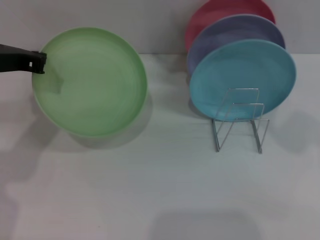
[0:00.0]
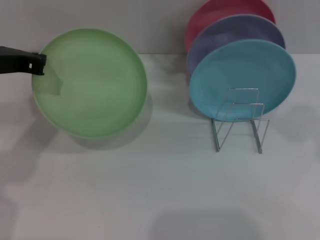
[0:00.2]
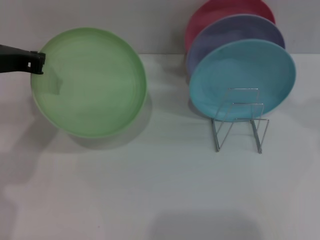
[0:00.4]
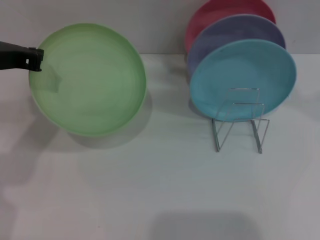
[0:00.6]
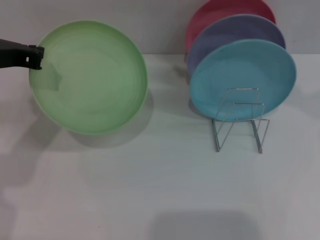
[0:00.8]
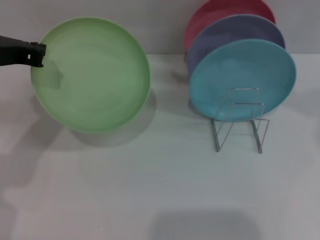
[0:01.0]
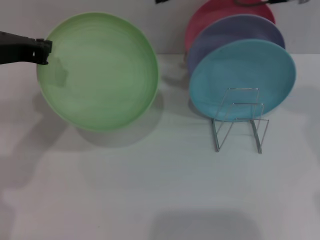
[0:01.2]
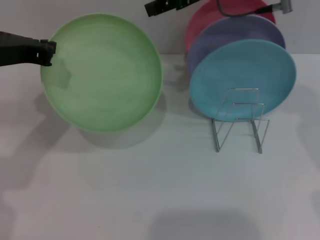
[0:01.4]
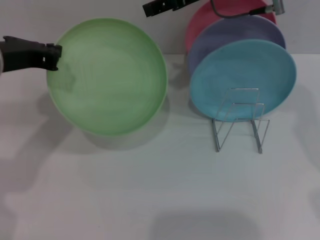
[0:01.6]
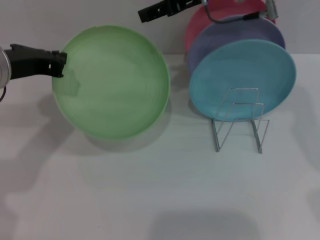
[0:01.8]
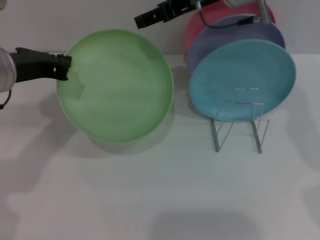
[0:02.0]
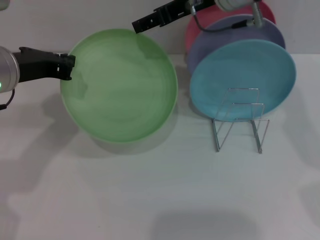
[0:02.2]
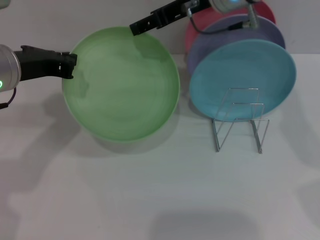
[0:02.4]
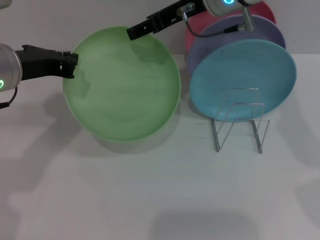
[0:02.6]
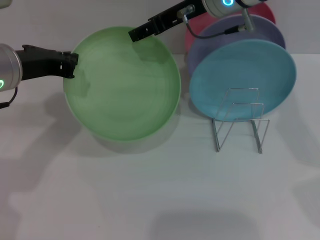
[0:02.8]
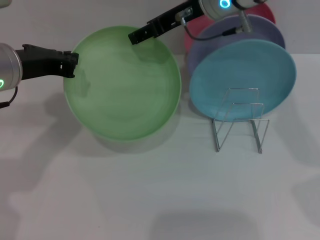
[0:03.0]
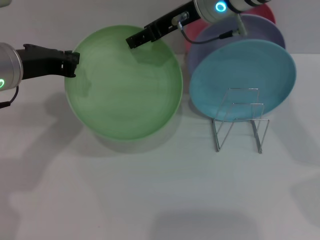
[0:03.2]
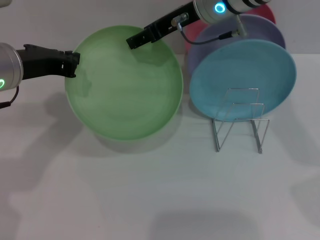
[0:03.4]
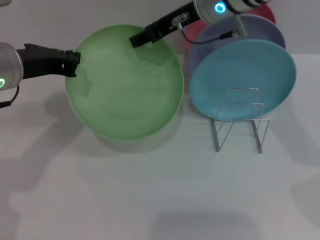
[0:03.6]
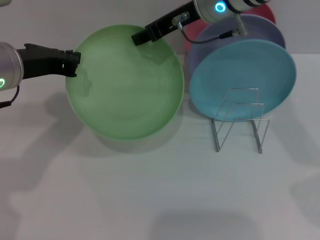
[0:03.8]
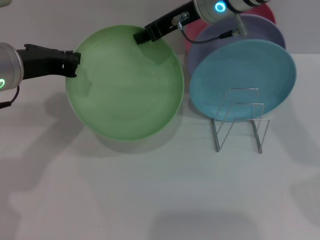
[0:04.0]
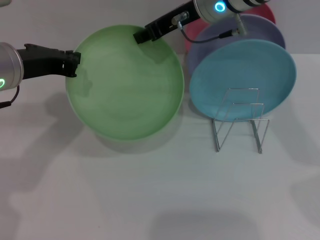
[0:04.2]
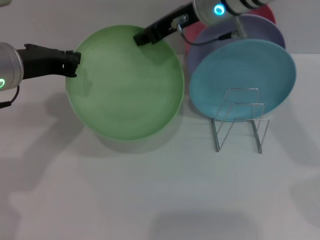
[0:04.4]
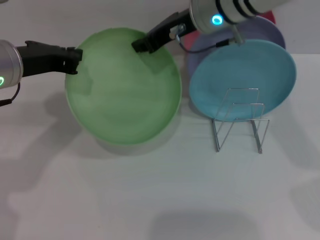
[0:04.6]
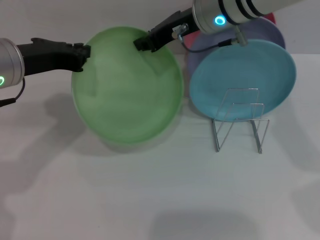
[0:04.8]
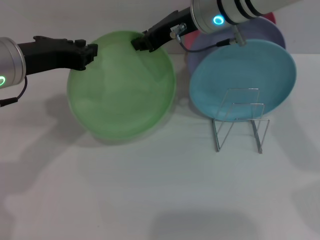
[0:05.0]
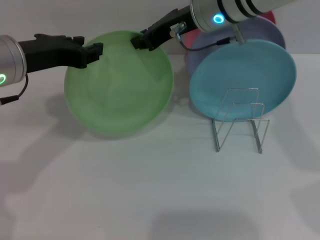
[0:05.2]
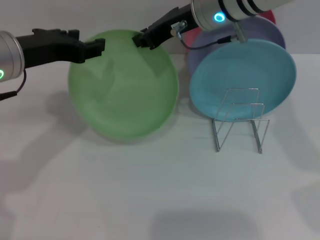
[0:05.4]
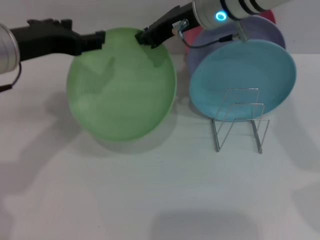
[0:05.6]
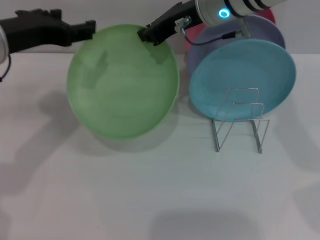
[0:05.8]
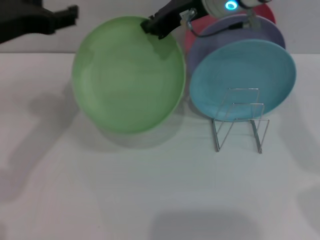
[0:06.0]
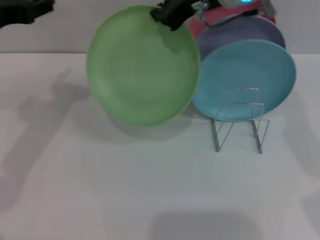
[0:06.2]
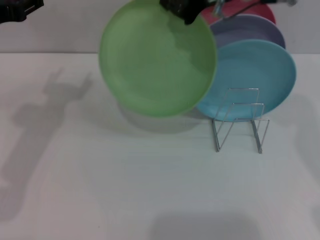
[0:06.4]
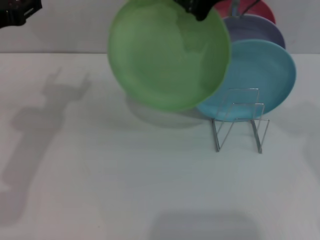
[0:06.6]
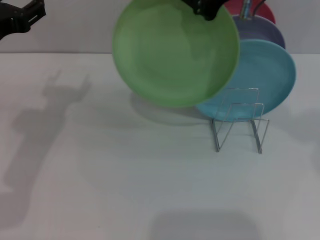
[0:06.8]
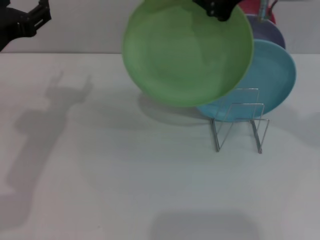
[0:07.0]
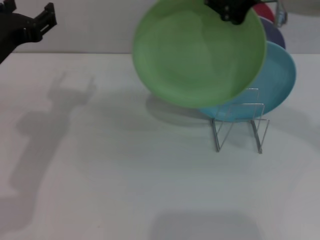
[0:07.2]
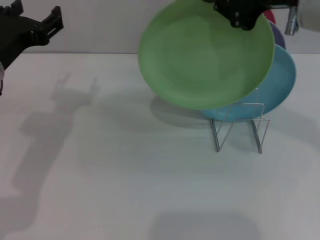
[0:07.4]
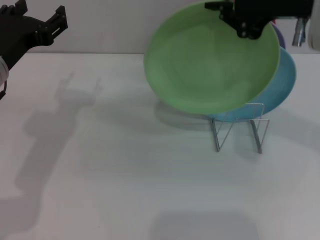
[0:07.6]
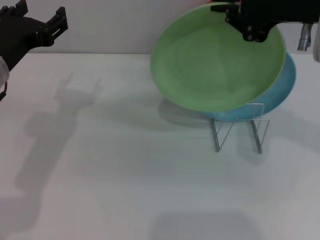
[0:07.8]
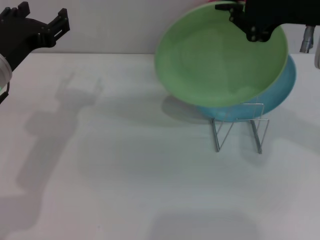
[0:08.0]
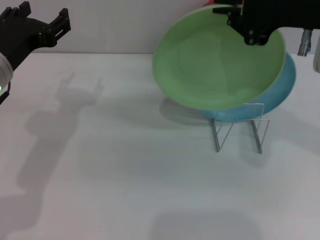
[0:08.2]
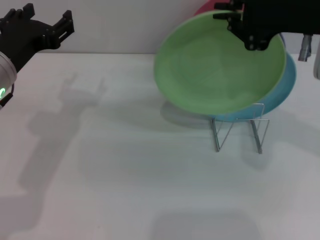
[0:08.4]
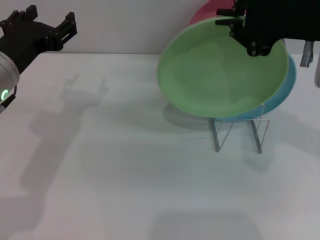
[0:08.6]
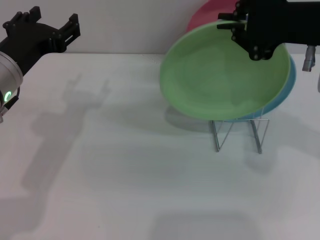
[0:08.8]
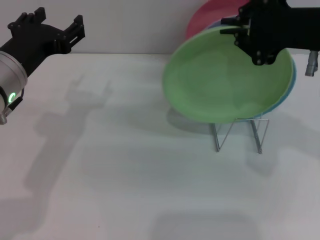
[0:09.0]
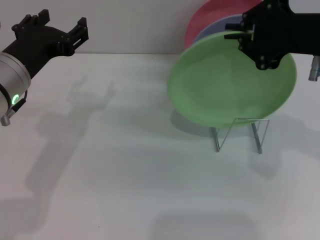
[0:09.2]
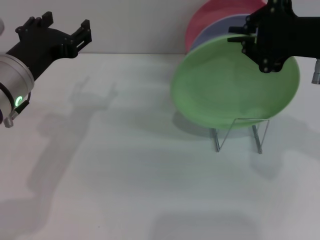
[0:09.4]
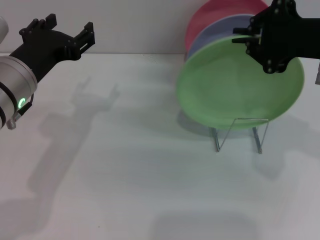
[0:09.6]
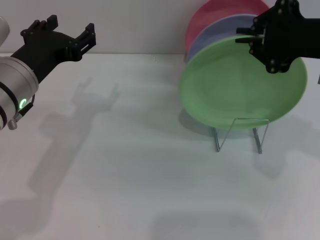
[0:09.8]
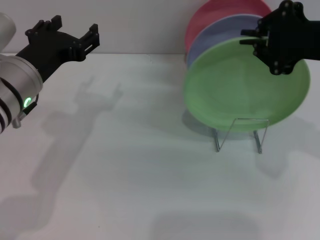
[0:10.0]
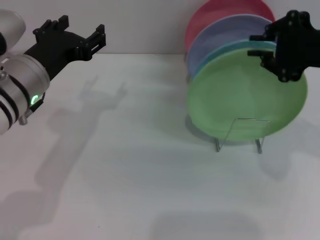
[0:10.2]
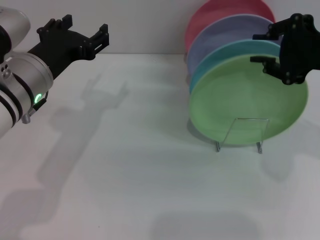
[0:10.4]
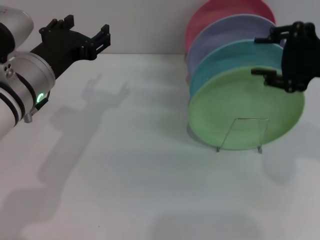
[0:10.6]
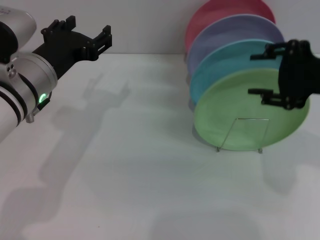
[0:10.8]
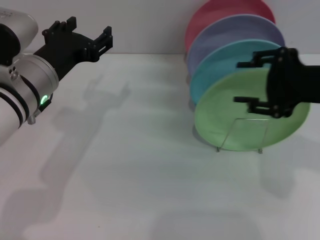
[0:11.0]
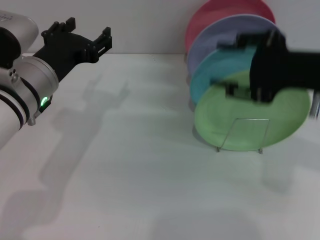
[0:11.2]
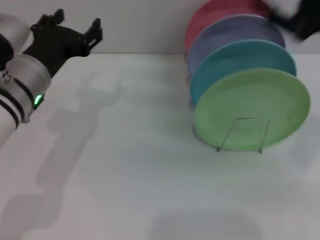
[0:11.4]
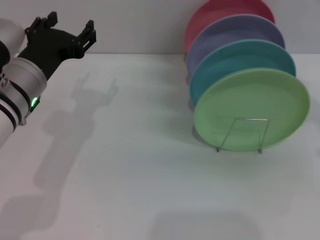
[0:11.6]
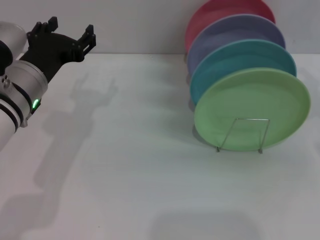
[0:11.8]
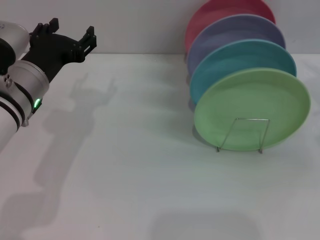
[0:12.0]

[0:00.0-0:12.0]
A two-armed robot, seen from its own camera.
Task of the whole recording: Grip the plate with one hand, pass it to the other, then set it on the shelf.
Step, 0:00.0 to 0:06.0: Pass the plate from the left gripper to the right gripper.
Step, 0:06.2 to 0:11.4: Place the plate on the shelf with the right gripper.
0:00.0 to 0:01.6: The right gripper changes place by roughly 5 cm.
0:01.6 to 0:03.0: The grippers make only small movements.
0:03.0 to 0:04.4: The right gripper closes up.
0:04.4 to 0:06.0: The right gripper closes its fingers; the left gripper opens.
0:06.0 to 0:07.6: The left gripper travels downward by approximately 5 cm; the right gripper moves backward and to the right, roughly 15 cm.
0:07.6 to 0:09.0: The grippers stay close to where they were, moving slightly.
0:09.0 to 0:10.4: There are only small adjustments of the grippers.
0:10.4 to 0:12.0: The right gripper heads to the right and downward, covering approximately 15 cm, and opens up.

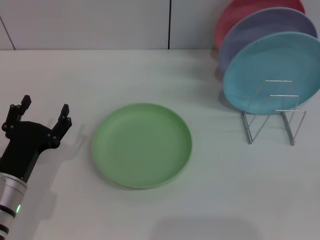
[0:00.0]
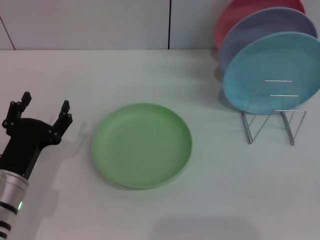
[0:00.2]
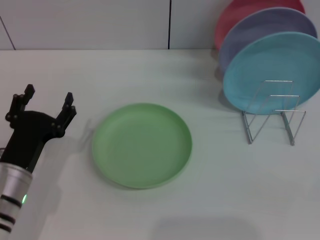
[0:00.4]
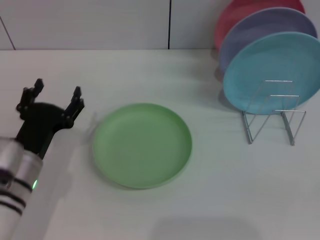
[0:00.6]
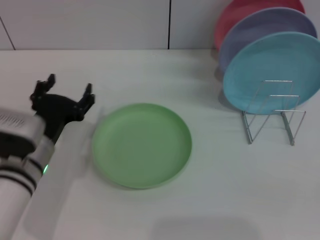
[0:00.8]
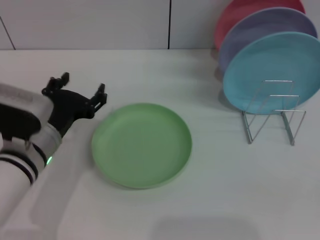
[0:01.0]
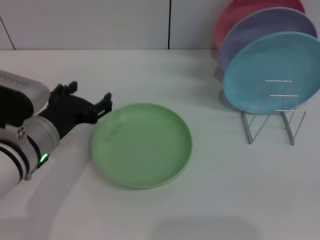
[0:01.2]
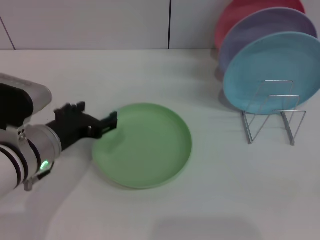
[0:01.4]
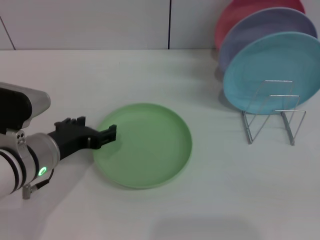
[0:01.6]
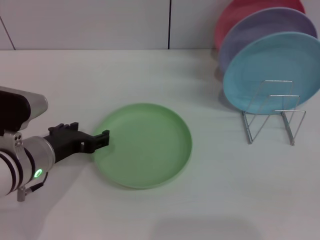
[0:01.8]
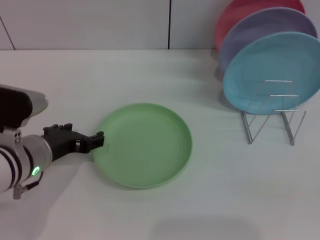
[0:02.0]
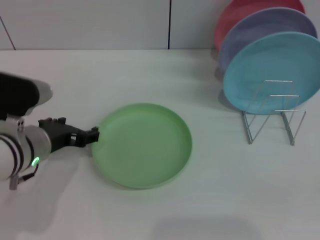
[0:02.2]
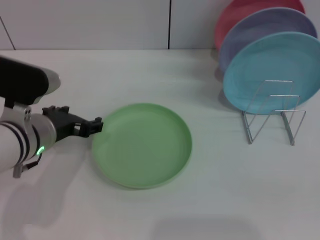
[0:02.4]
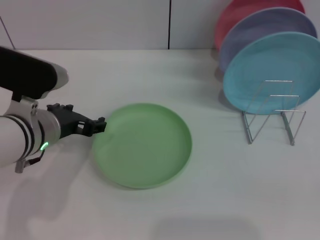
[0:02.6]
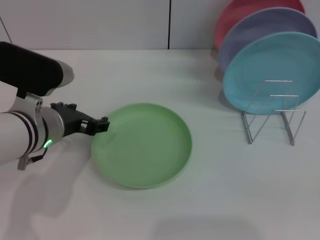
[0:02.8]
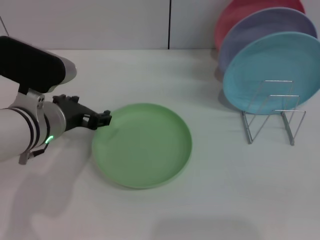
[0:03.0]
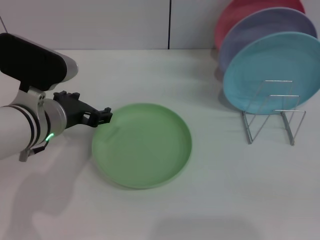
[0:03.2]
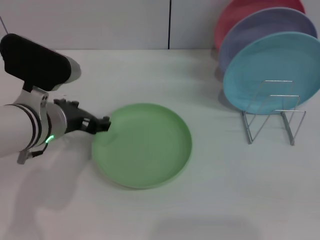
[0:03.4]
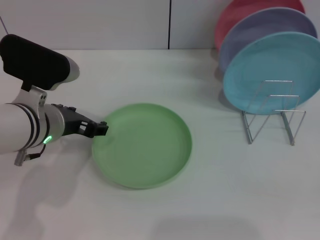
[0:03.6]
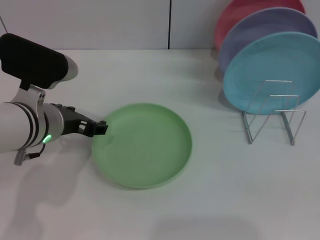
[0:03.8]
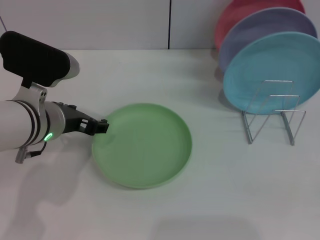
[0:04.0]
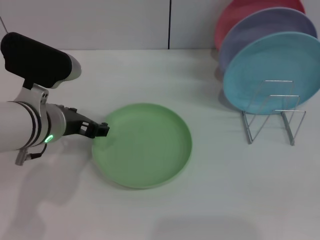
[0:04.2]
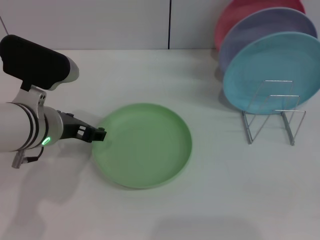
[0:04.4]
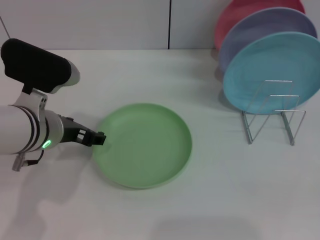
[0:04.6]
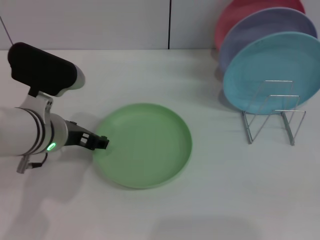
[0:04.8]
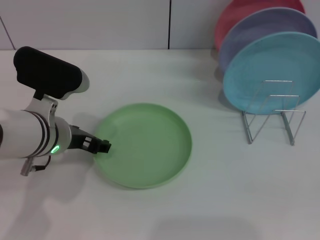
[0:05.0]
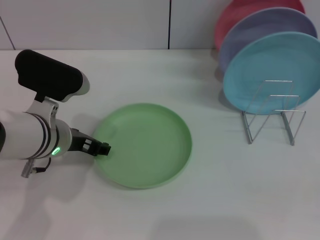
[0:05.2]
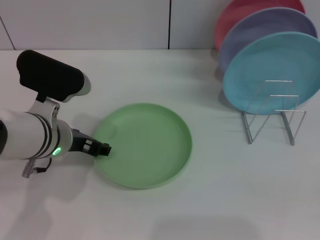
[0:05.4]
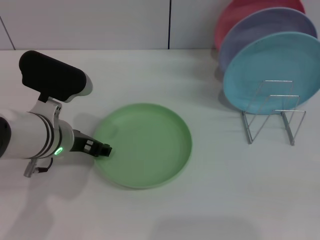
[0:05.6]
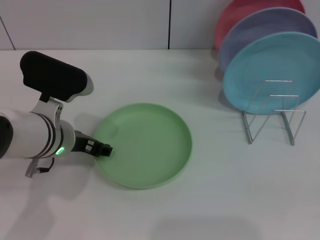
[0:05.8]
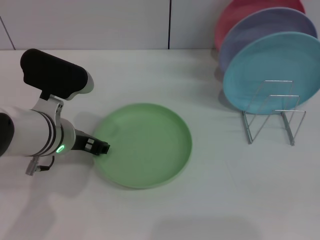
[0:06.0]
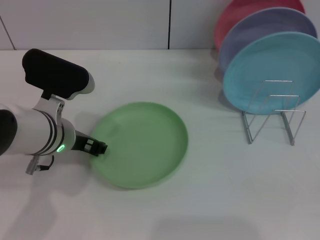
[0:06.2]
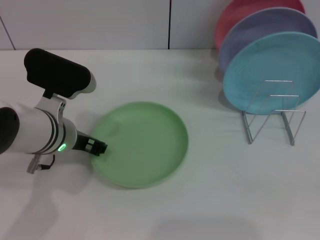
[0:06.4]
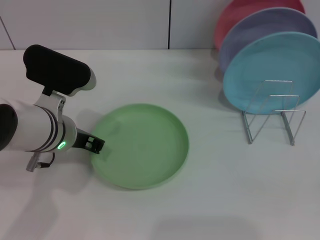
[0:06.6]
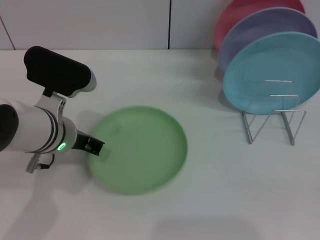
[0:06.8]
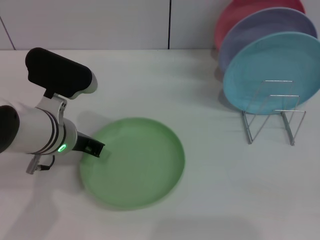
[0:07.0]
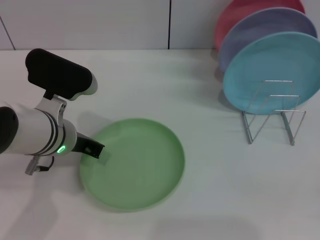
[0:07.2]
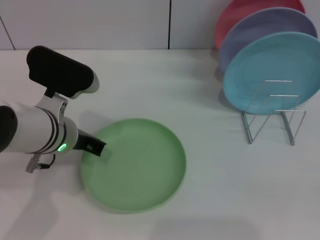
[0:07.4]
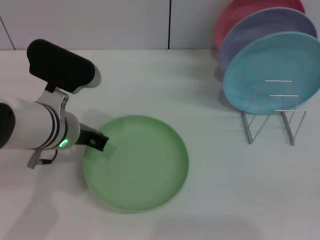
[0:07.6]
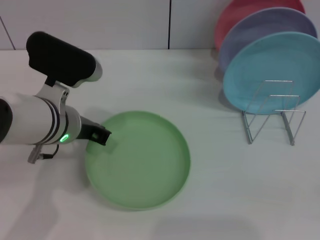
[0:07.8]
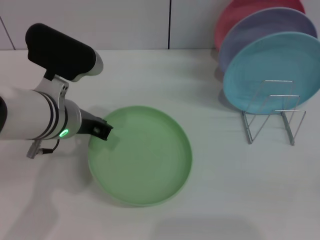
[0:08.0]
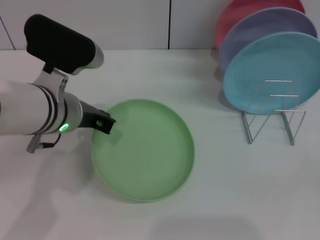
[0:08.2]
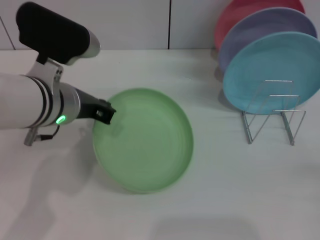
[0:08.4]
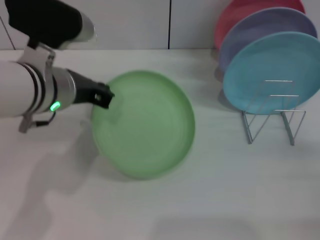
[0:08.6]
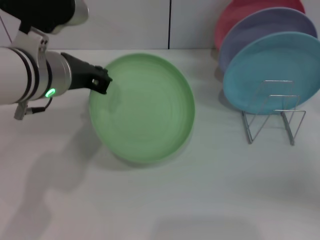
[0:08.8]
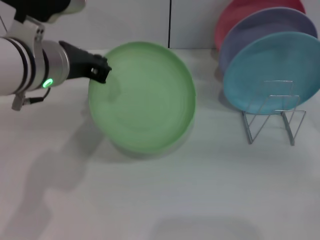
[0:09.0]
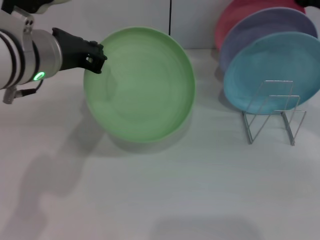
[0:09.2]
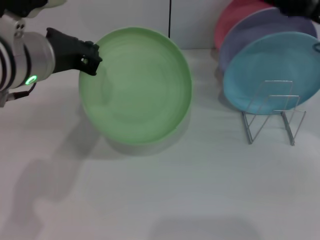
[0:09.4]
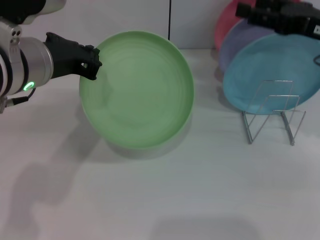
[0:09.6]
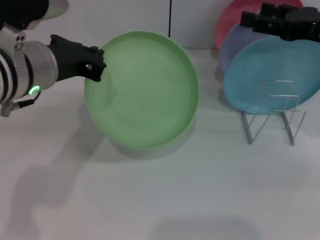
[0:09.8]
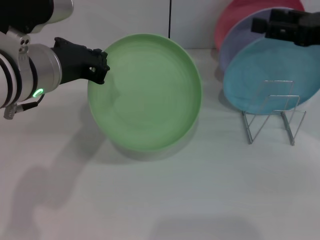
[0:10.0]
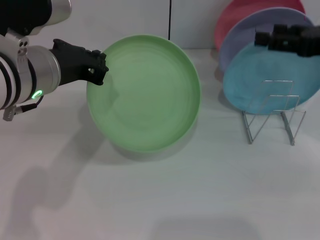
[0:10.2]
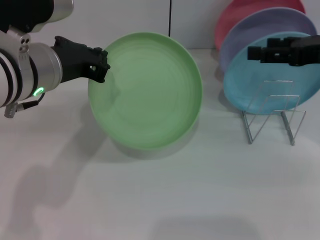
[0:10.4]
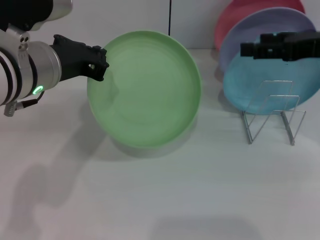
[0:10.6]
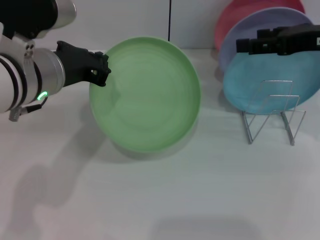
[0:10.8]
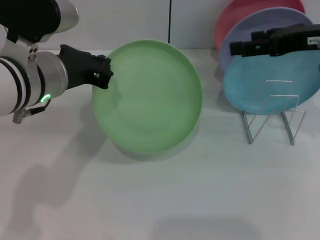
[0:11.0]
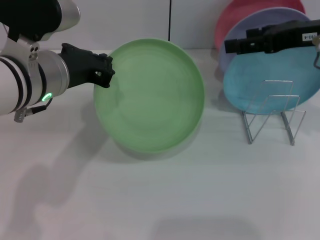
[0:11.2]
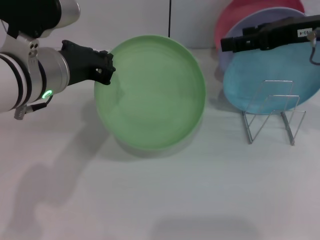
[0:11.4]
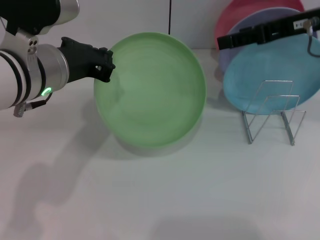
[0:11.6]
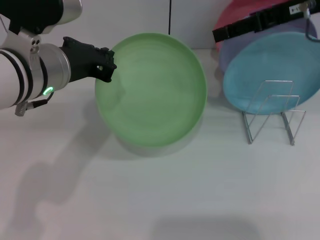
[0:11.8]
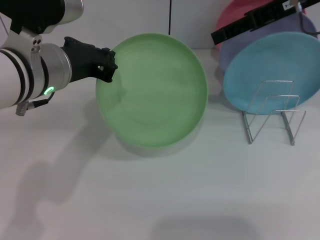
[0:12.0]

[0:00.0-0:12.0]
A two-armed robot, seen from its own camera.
Task of the whole recording: Grip the plate with one hand, pass it to the other, then set it on the shelf.
Step, 0:00.0 to 0:08.8: Pick up the plate with the left gripper.
0:00.0 to 0:01.6: The left gripper goes approximately 10 cm upward.
0:01.6 to 0:03.0: The left gripper shifts by about 5 cm.
0:03.0 to 0:06.0: The grippers stay close to where they were, moving slightly.
0:06.0 to 0:07.6: The left gripper closes.
0:07.6 to 0:09.0: The left gripper shifts about 10 cm upward; the right gripper travels forward and upward by some 25 cm.
0:09.0 to 0:10.4: The right gripper moves upward, about 5 cm.
0:10.4 to 0:12.0: The right gripper heads upward, to the left and forward, covering about 10 cm.
